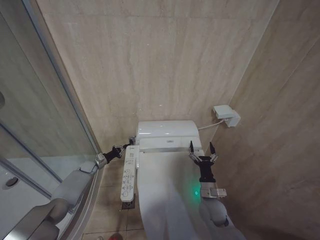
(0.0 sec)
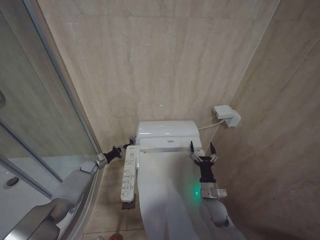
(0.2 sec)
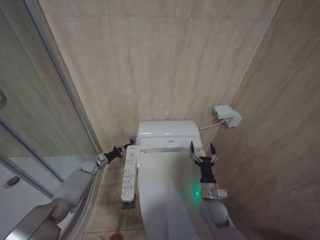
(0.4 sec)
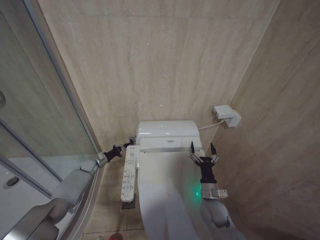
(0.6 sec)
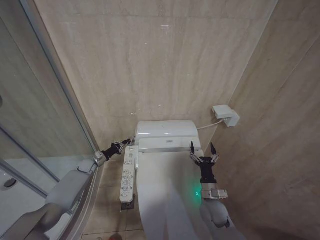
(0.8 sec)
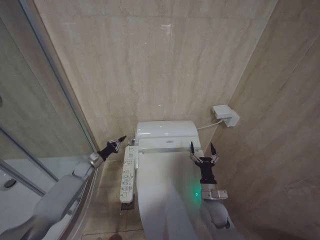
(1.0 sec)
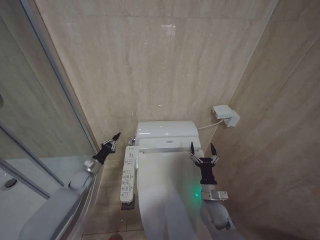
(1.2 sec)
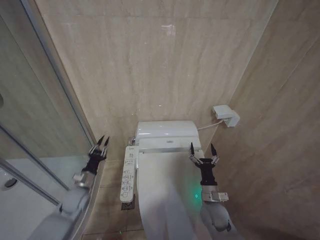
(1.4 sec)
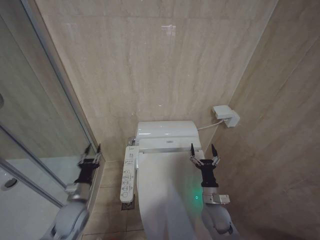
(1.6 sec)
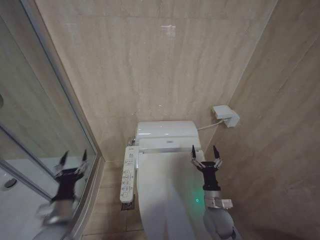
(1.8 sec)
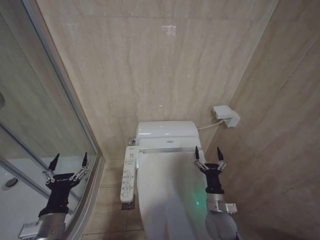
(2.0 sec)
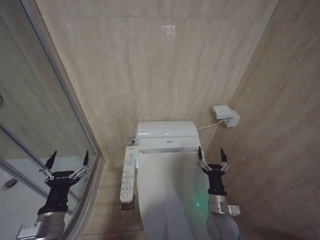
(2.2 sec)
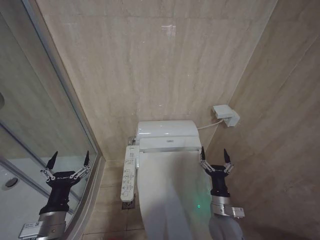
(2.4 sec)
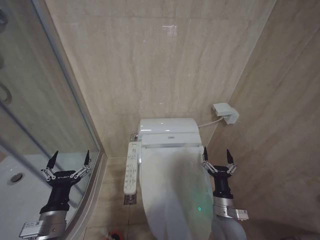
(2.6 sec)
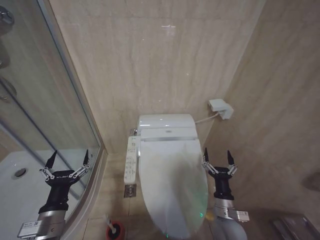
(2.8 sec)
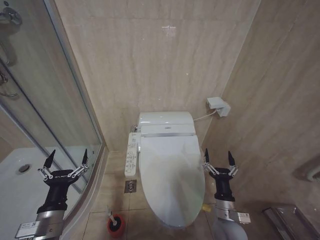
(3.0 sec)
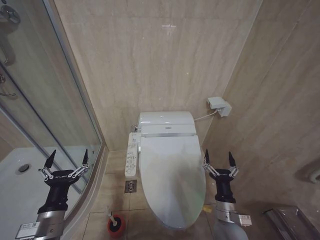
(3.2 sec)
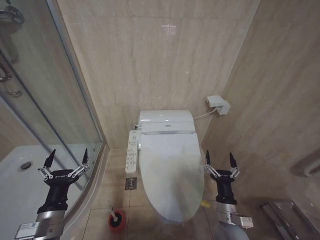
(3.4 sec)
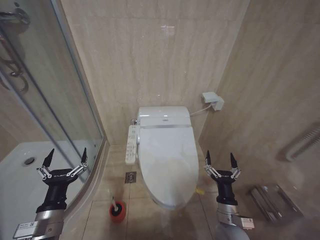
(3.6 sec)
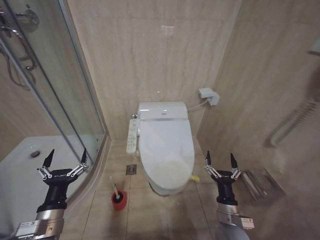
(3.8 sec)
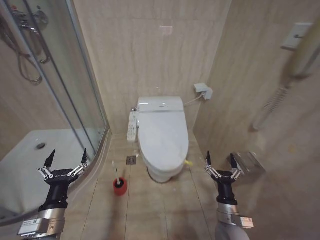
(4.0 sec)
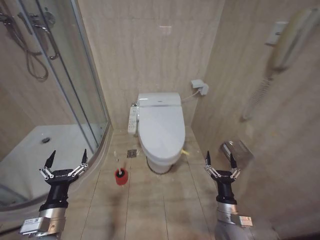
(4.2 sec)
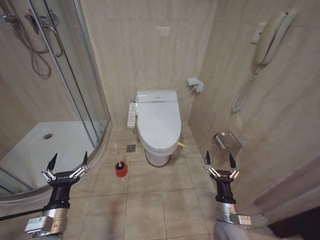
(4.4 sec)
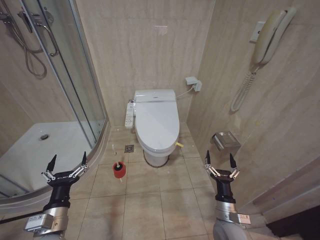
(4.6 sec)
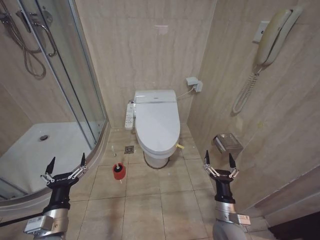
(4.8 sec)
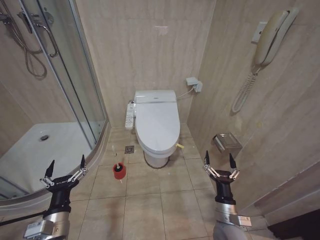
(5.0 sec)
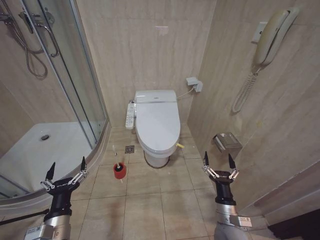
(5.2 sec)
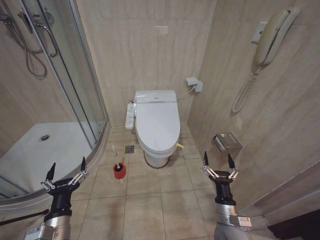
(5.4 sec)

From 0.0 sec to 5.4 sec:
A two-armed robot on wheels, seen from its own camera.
Task of the whole recording: Open the toilet lid, clean the toilet bowl with a toilet brush, close the toilet lid, and flush.
From 0.0 sec to 1.4 sec: The left gripper heads backward, covering approximately 15 cm.
From 1.4 sec to 2.8 sec: The left gripper moves backward and upward, approximately 25 cm, and opens its fingers. The right gripper travels backward by about 5 cm.
